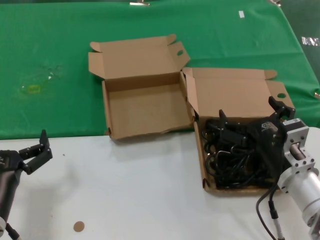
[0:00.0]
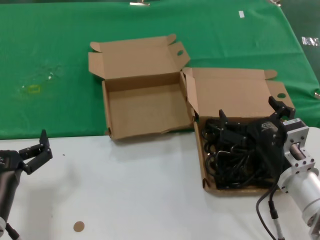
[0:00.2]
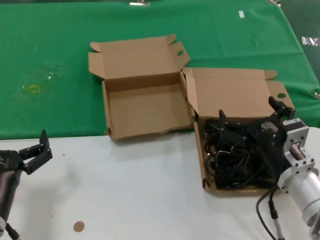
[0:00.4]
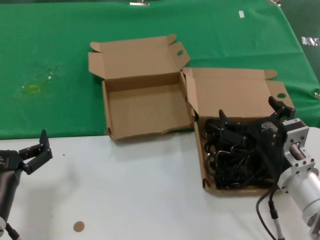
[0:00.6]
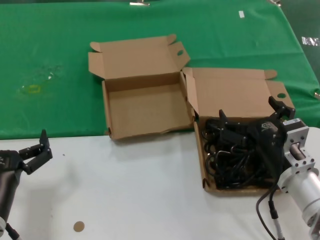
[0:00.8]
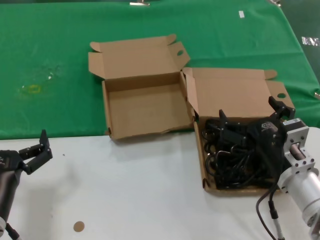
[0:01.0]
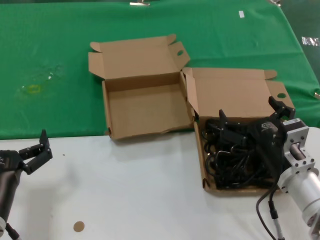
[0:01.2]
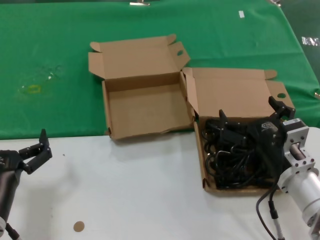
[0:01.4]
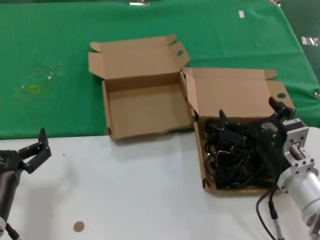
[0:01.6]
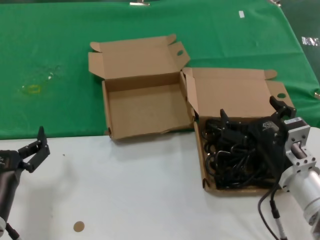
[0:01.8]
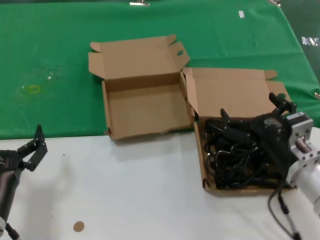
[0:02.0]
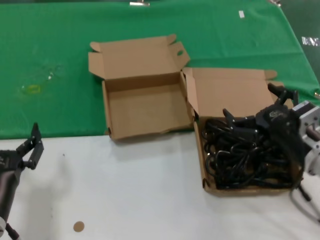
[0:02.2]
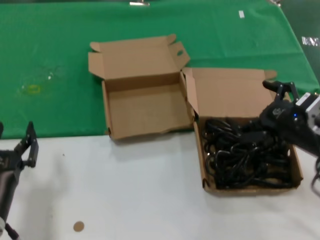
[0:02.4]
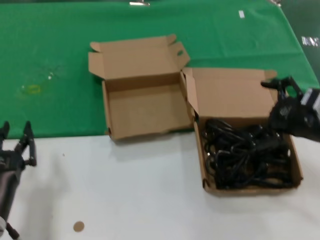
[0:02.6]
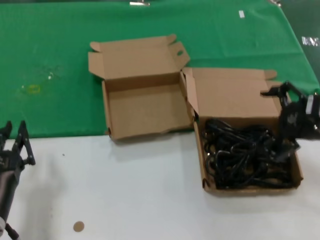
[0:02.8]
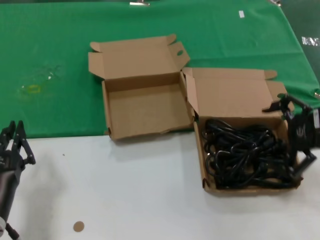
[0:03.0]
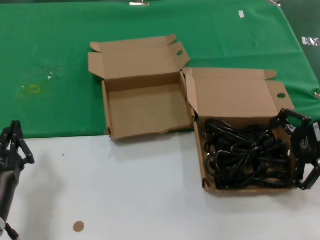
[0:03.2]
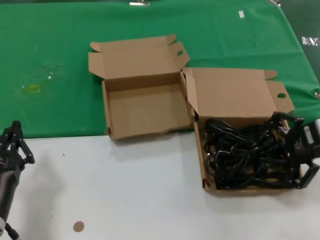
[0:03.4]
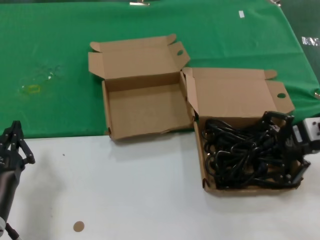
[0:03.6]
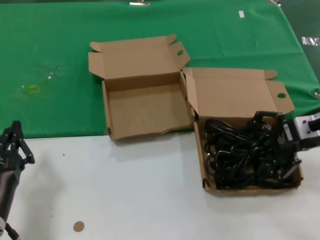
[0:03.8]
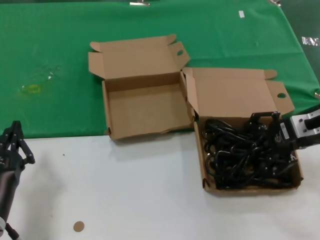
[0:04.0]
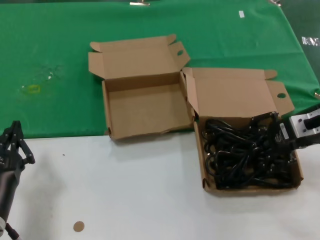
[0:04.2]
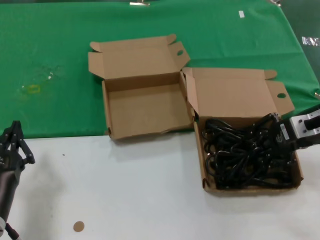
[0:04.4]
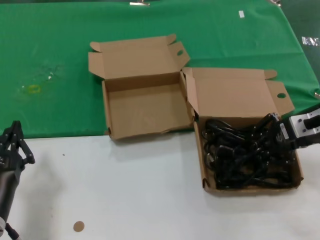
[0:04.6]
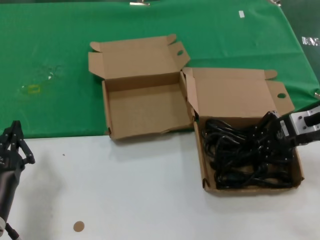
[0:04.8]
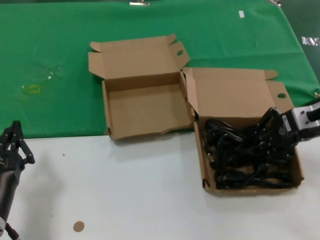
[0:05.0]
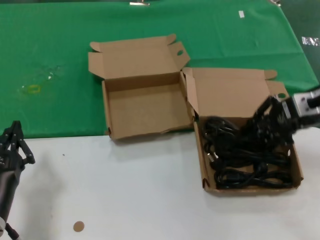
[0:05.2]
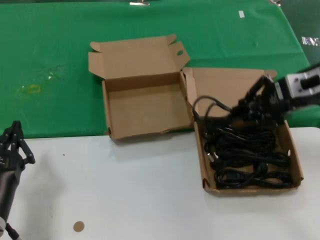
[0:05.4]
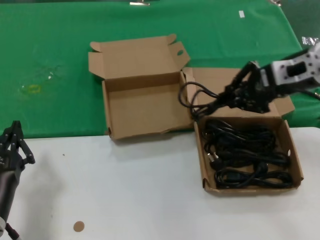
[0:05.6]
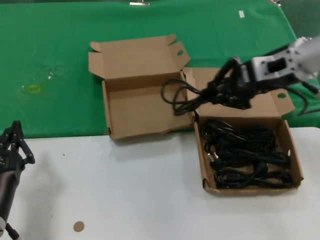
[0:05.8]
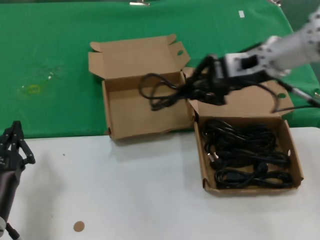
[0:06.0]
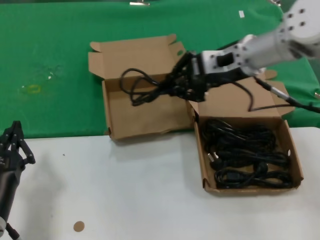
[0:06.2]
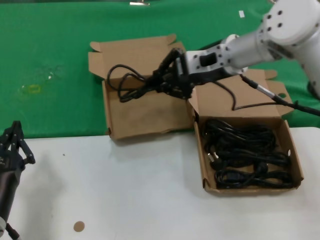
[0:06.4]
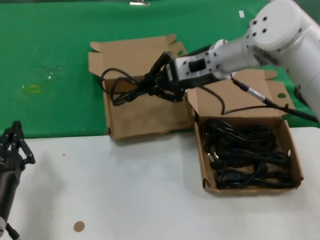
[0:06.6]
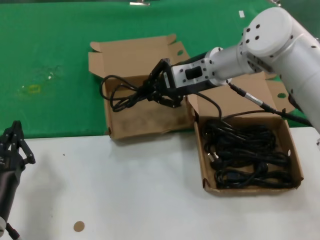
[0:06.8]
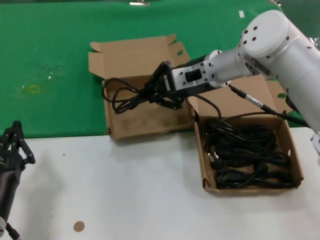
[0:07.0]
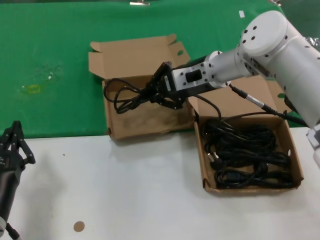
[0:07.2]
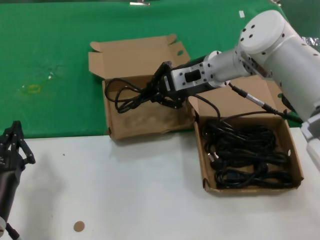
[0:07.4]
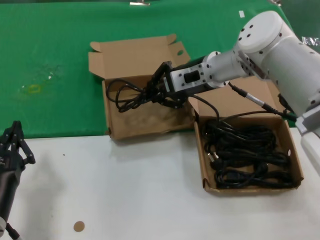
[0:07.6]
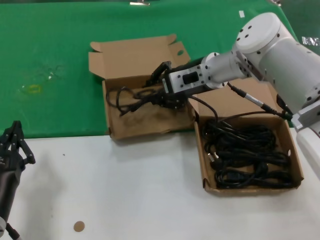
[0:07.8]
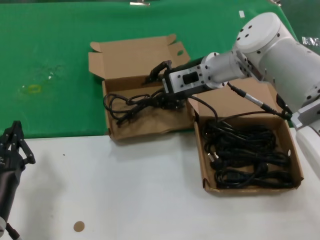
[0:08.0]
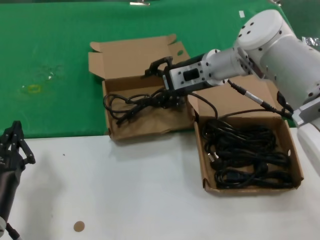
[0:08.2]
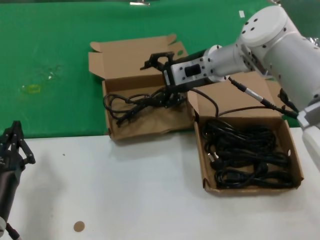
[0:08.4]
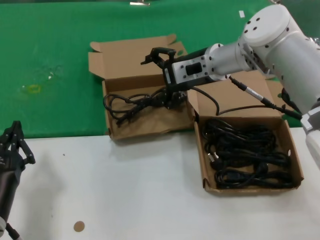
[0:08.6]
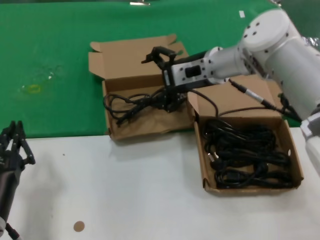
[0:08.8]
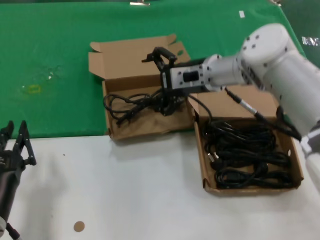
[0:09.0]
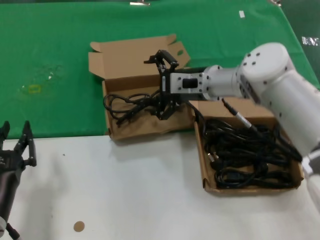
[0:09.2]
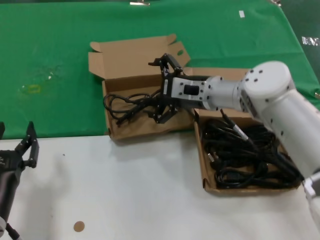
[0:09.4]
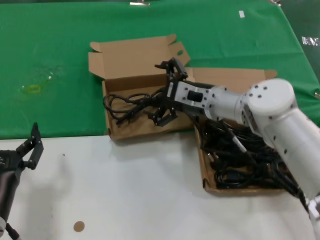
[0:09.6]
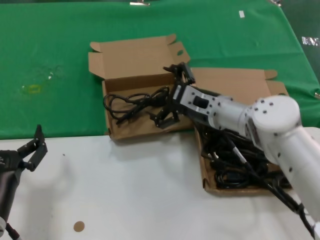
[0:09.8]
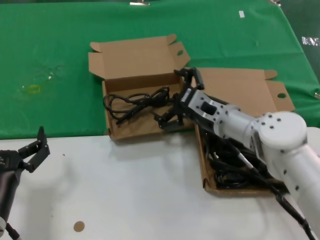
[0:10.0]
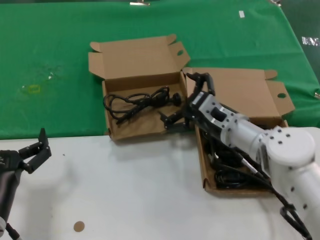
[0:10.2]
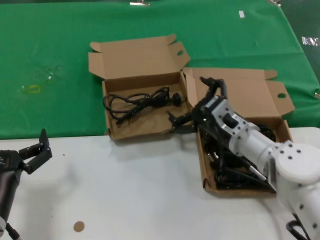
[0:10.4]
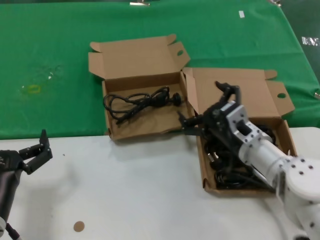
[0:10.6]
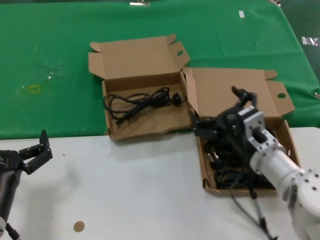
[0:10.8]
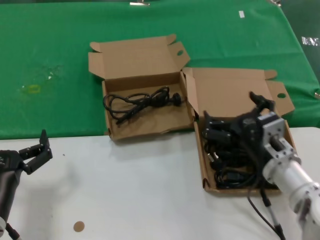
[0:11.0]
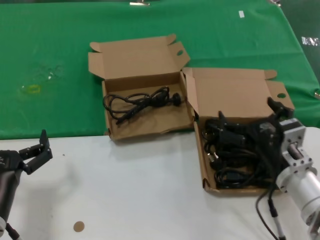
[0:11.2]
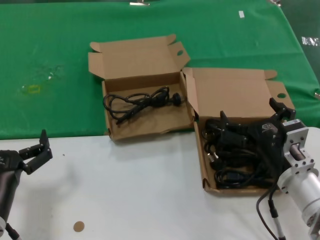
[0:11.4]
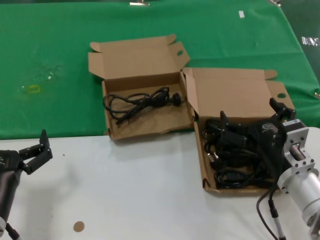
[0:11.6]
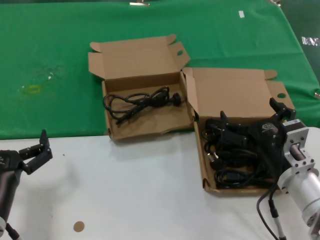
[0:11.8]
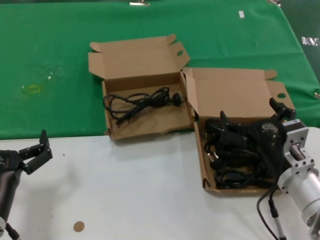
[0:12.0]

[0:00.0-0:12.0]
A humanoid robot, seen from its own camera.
Task of the whole recording: take the parts from the box containing them and put them into an empty box.
Step, 0:00.0 to 0:04.6: Grasp the data cable.
Step, 0:04.8 to 0:07.8: Place the data cable in the another box.
0:00.0 to 0:01.6: Neither hand changes place.
0:01.6 to 0:03.0: The right hand shifts roughly 20 cm upward and to the right.
0:03.0 to 0:04.4: The right hand travels forward by about 5 cm.
0:04.4 to 0:06.0: The right hand travels to the left, upward and forward by about 15 cm.
0:06.0 to 0:07.6: The right hand travels to the left, forward and downward by some 15 cm.
0:07.6 to 0:09.0: The hands move only a little.
0:09.0 to 0:10.4: The right hand heads downward and backward, covering about 20 cm.
0:10.4 to 0:12.0: The right hand goes some 10 cm backward.

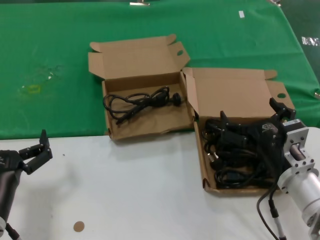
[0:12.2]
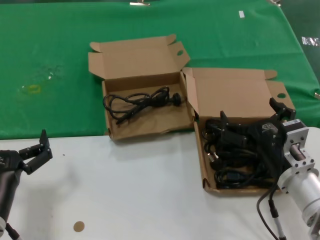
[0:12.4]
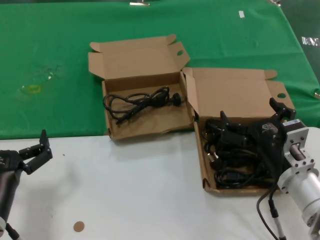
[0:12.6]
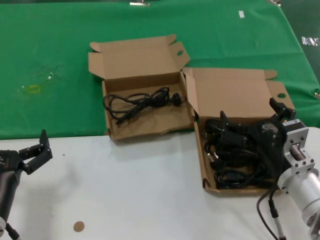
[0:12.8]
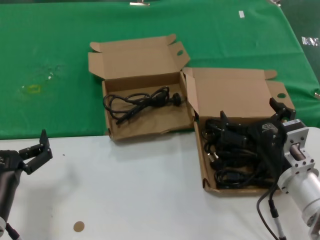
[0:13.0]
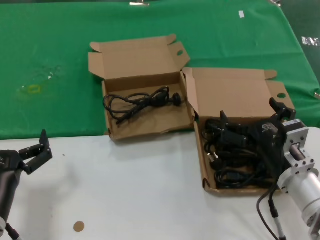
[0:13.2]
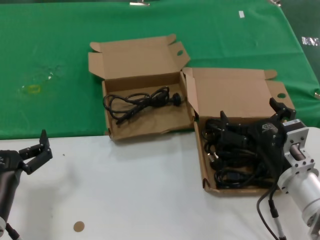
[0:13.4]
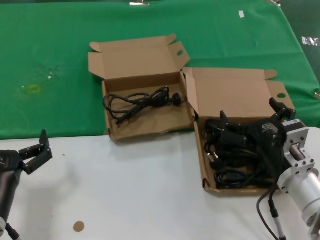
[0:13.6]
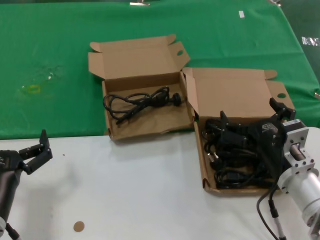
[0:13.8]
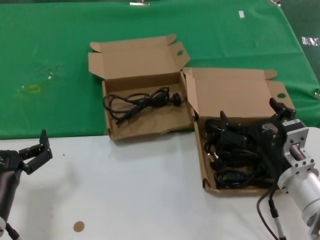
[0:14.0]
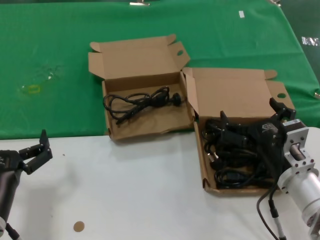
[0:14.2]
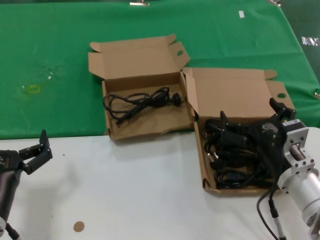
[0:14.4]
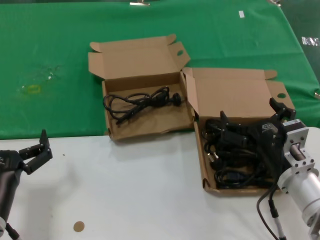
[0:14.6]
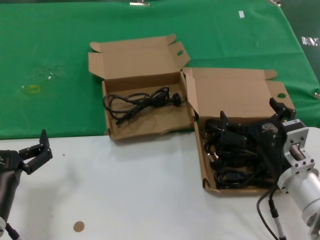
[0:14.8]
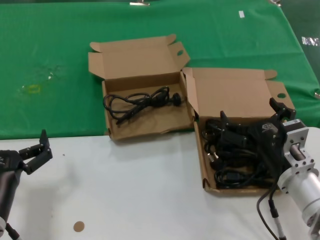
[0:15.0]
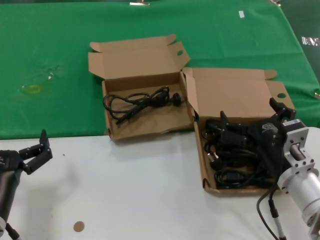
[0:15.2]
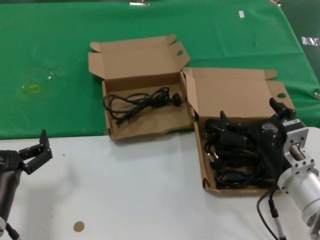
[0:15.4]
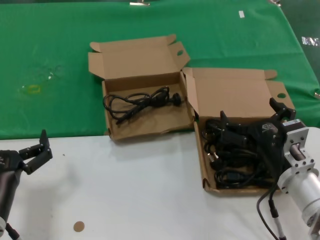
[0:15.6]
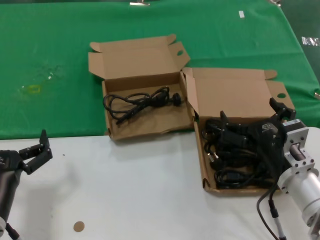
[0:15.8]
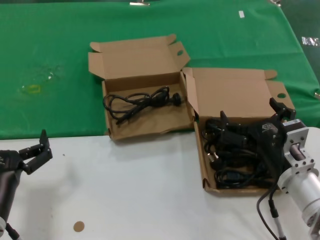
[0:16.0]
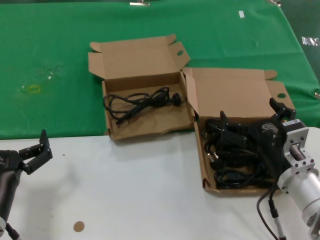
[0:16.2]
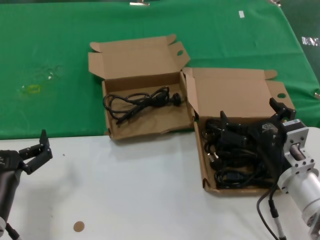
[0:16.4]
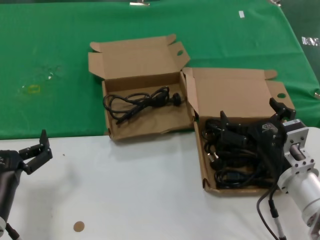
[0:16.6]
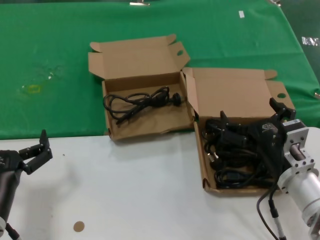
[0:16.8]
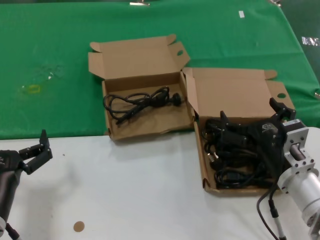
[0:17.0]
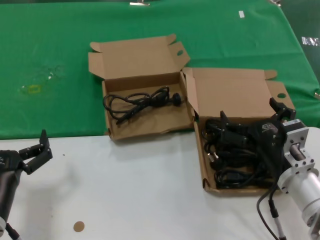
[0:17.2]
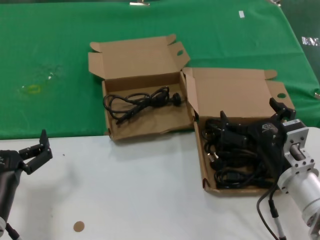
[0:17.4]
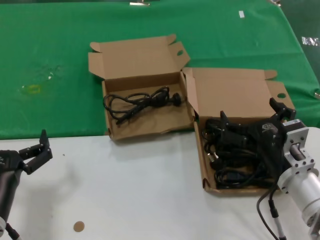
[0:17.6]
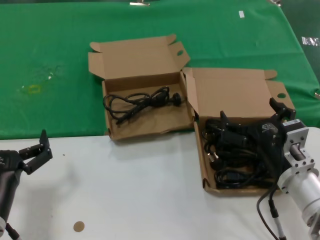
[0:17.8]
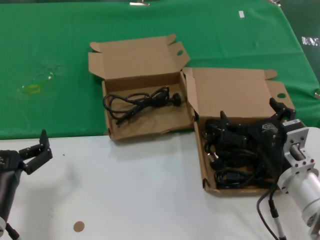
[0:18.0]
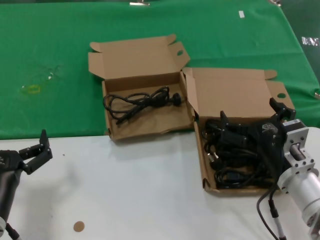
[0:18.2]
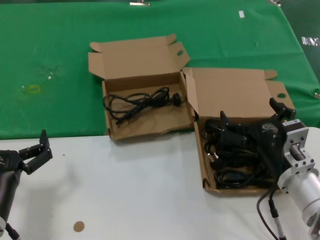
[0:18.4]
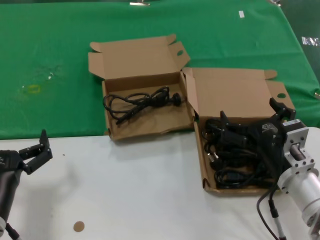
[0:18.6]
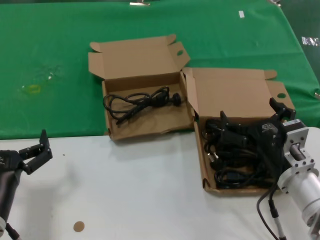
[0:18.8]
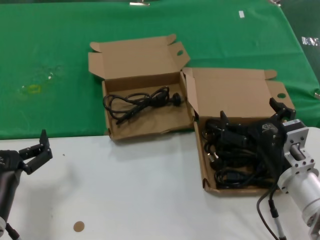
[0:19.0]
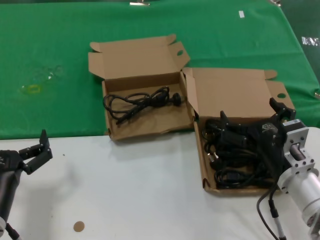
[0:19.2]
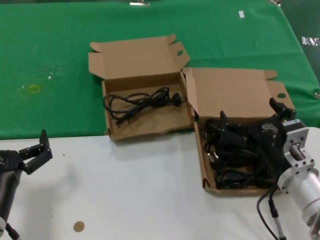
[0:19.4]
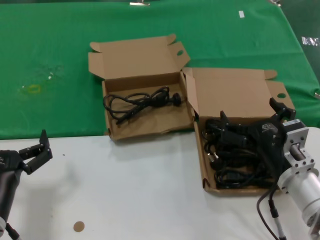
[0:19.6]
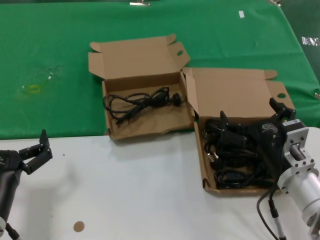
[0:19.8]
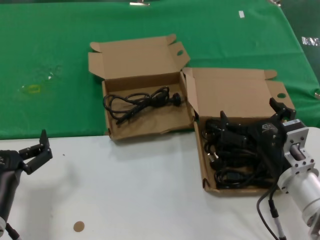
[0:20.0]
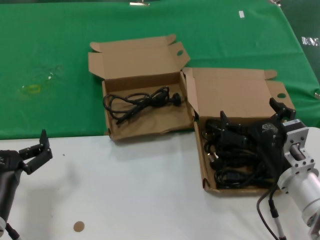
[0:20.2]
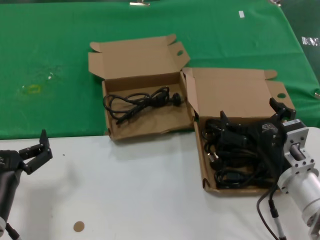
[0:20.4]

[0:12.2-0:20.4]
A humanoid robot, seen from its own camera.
Task of the whole recording: take the parts from the box containing them and put them into an empty box.
0:12.2 to 0:20.4: Neither hand changes place.

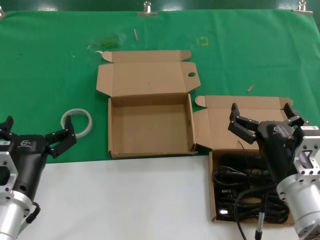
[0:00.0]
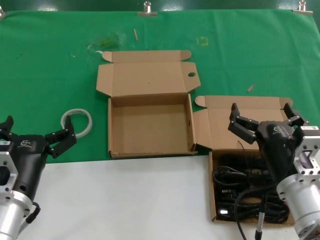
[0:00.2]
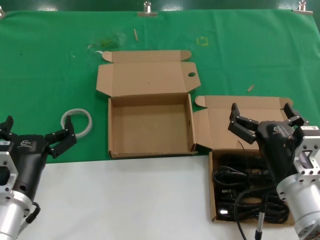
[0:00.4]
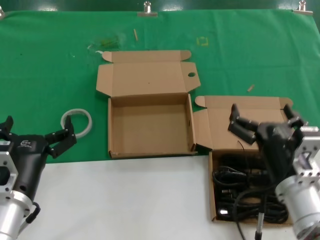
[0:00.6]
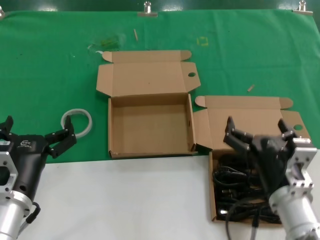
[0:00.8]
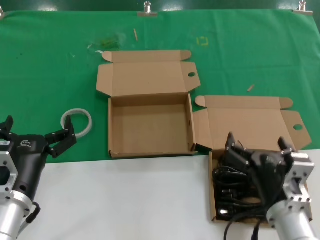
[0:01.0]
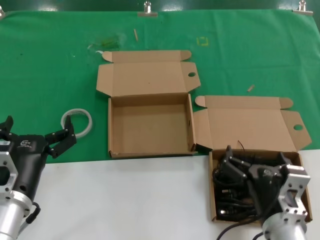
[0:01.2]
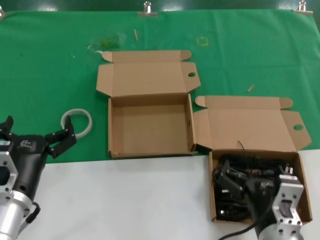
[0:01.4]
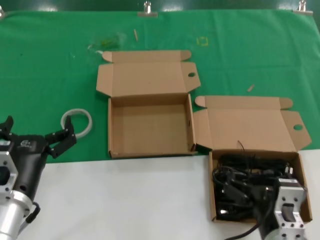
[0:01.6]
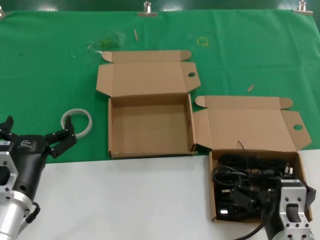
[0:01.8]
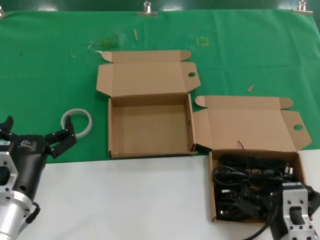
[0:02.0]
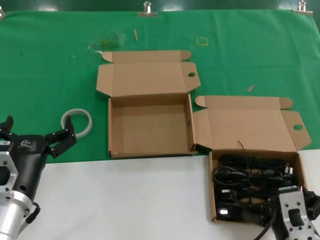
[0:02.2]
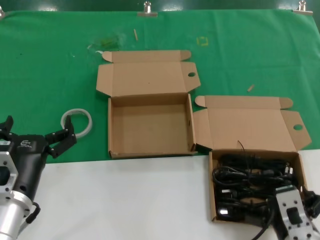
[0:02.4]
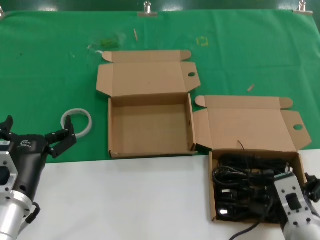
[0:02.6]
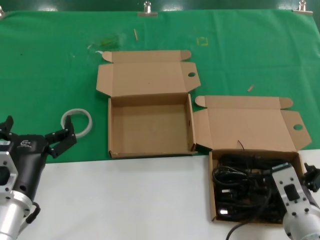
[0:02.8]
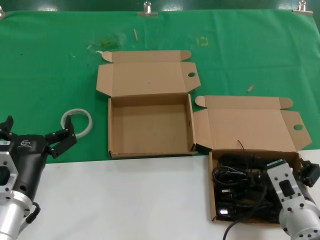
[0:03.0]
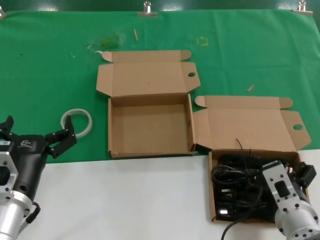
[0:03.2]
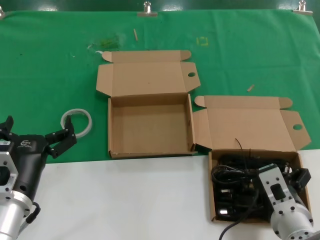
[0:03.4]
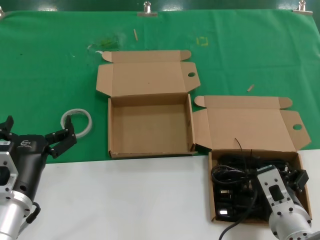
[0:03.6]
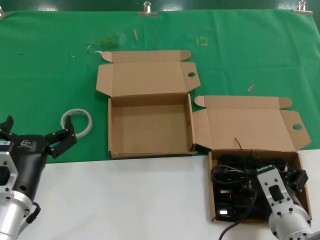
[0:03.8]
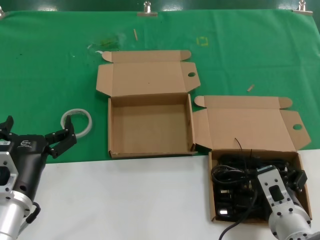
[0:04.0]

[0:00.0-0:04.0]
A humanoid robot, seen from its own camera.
Task of the whole recording: take the parts from the box containing them and put them into an empty box.
0:00.0 to 0:01.4: The right hand goes roughly 5 cm backward.
0:02.6 to 0:04.0: The hands move only a little.
